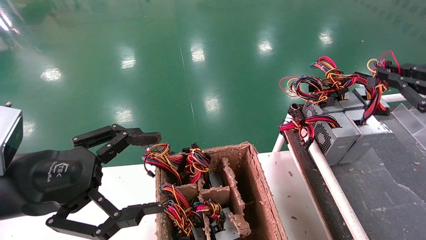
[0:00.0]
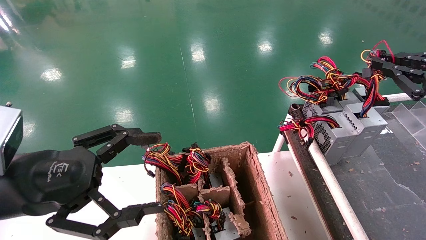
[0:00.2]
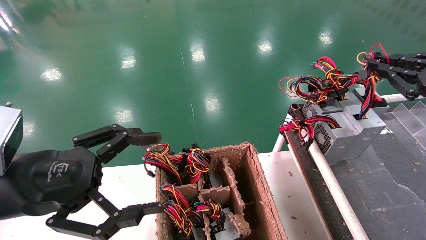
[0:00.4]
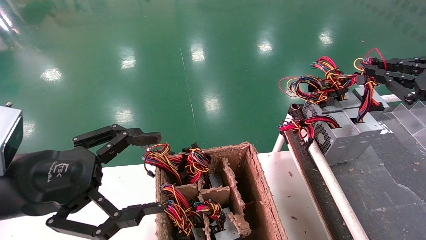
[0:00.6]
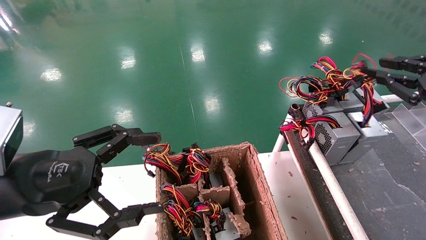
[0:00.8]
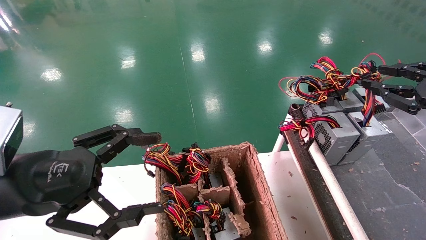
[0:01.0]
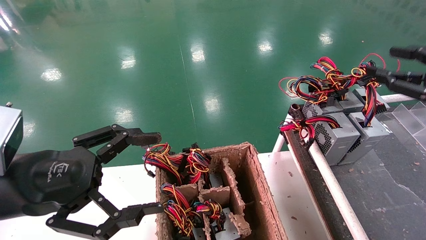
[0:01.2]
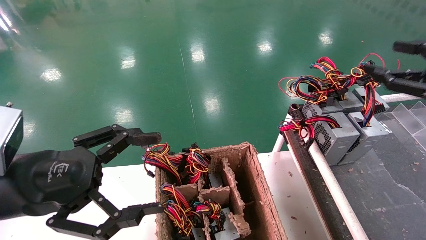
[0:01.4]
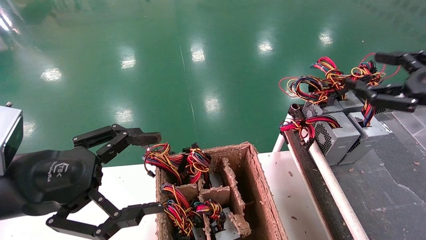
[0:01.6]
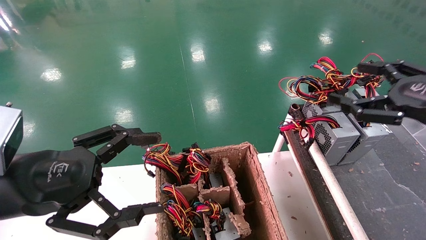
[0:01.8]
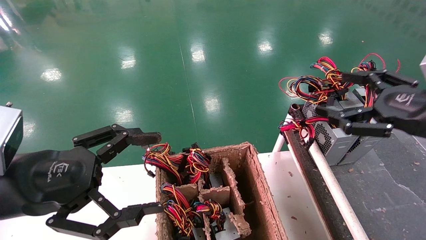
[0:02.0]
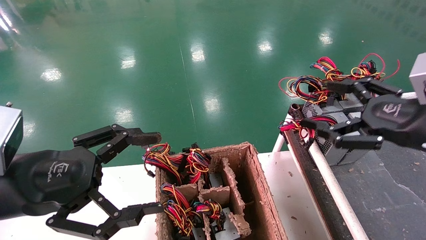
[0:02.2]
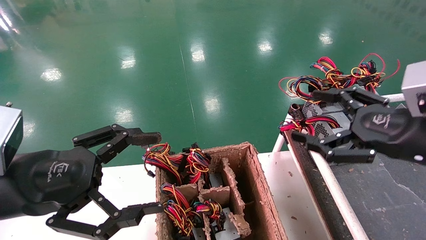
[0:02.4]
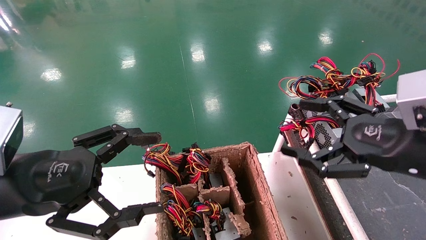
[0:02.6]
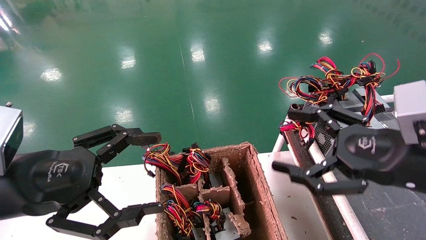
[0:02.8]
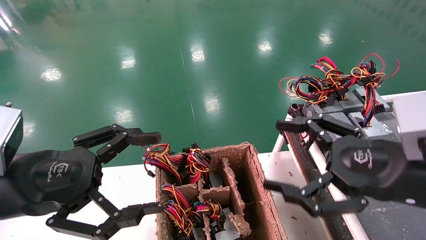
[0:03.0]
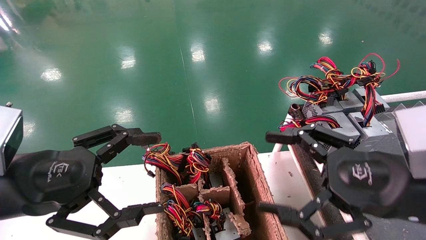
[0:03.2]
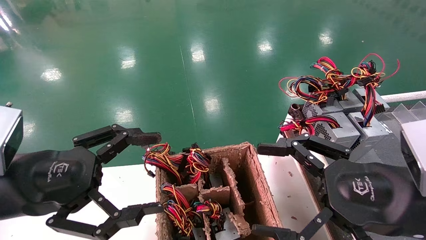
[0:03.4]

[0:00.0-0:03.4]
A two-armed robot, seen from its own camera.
0:00.0 to 0:01.6: The right gripper opens its fingers.
0:01.6 to 0:03.4: The right gripper goes approximately 15 cm to the left, downward and backward.
